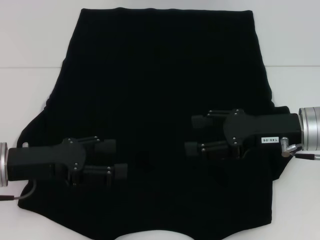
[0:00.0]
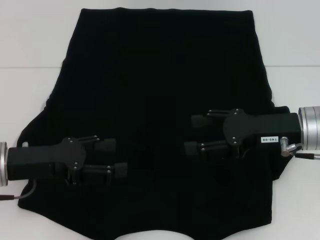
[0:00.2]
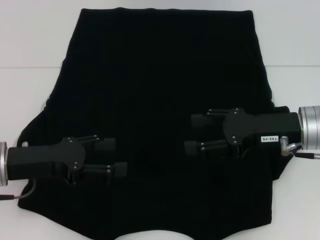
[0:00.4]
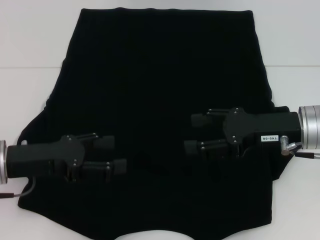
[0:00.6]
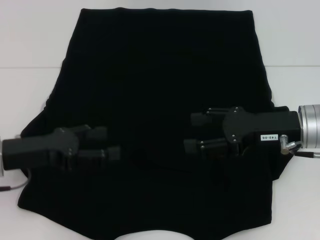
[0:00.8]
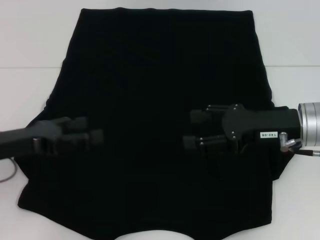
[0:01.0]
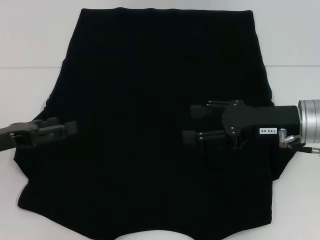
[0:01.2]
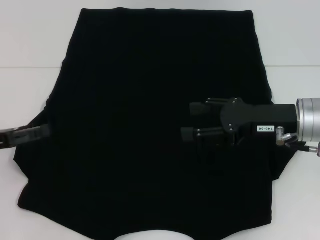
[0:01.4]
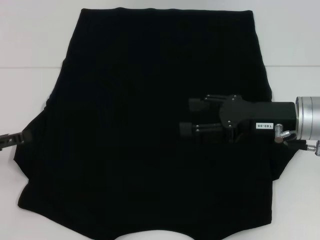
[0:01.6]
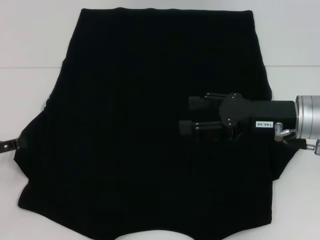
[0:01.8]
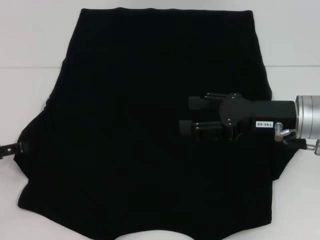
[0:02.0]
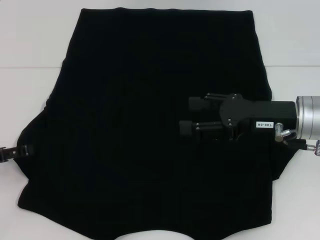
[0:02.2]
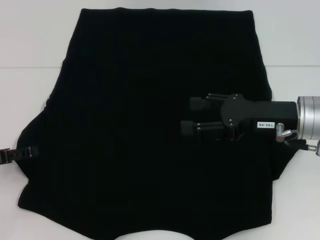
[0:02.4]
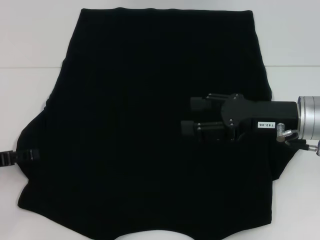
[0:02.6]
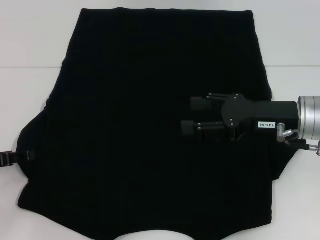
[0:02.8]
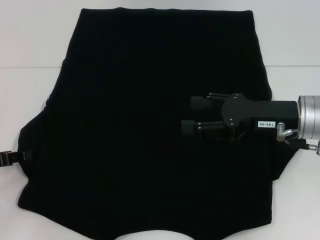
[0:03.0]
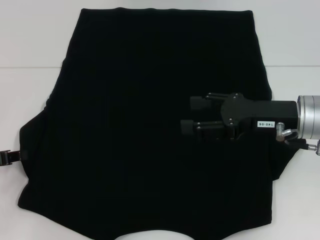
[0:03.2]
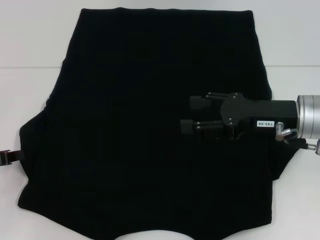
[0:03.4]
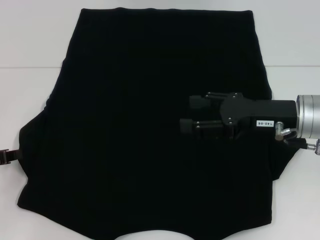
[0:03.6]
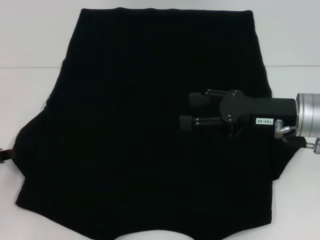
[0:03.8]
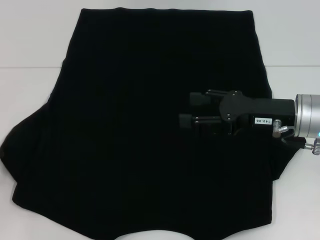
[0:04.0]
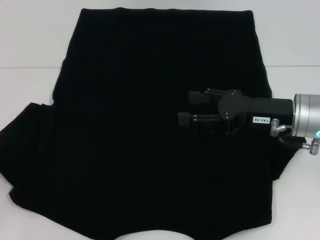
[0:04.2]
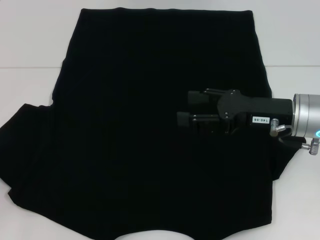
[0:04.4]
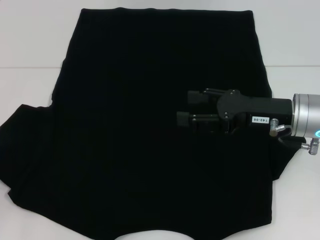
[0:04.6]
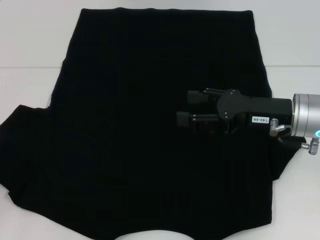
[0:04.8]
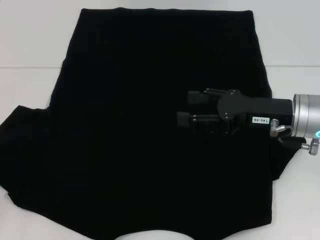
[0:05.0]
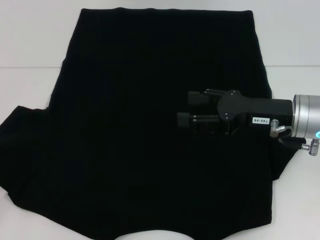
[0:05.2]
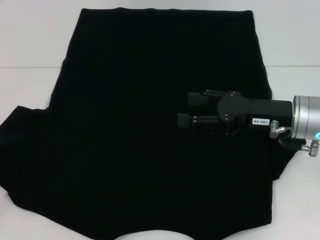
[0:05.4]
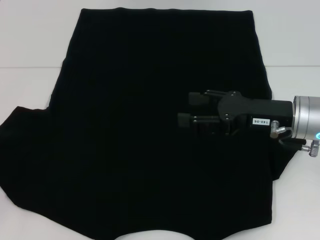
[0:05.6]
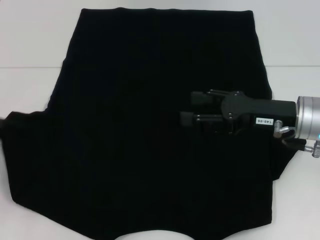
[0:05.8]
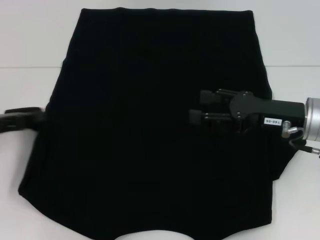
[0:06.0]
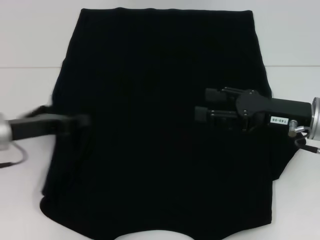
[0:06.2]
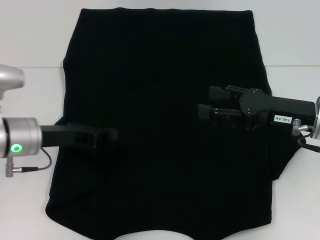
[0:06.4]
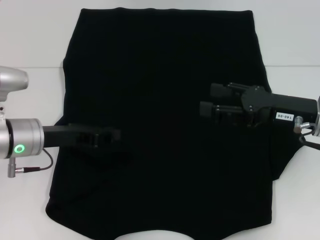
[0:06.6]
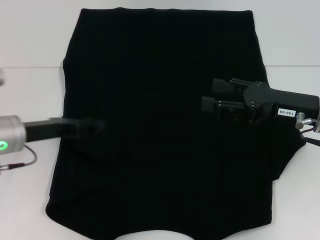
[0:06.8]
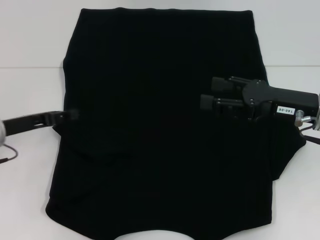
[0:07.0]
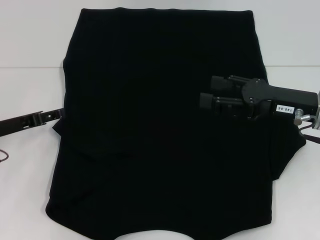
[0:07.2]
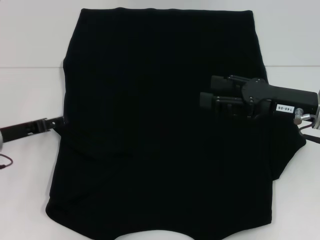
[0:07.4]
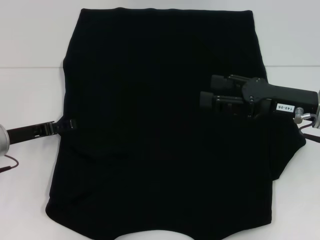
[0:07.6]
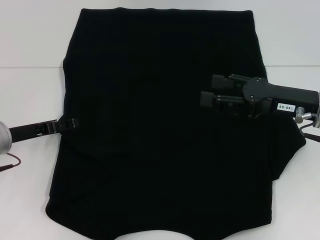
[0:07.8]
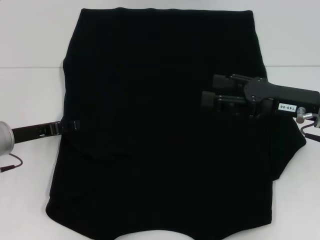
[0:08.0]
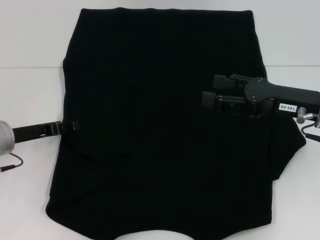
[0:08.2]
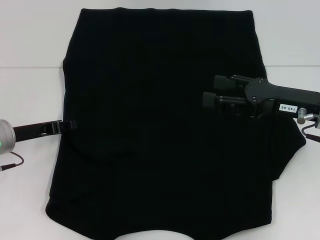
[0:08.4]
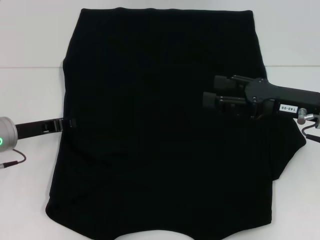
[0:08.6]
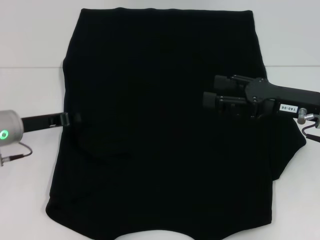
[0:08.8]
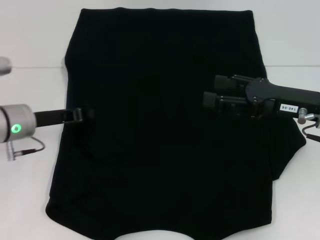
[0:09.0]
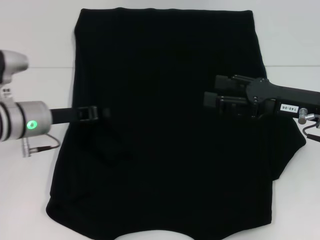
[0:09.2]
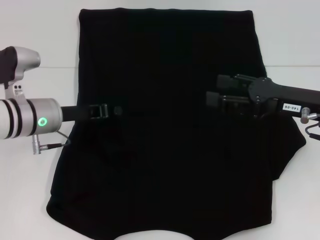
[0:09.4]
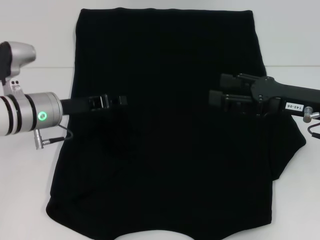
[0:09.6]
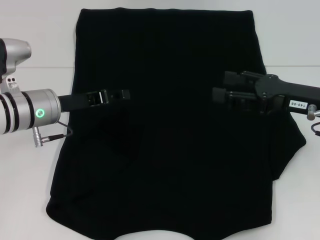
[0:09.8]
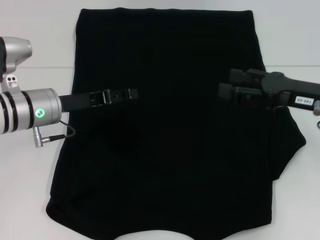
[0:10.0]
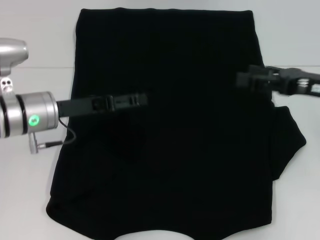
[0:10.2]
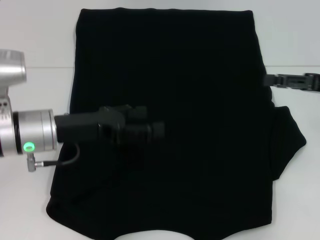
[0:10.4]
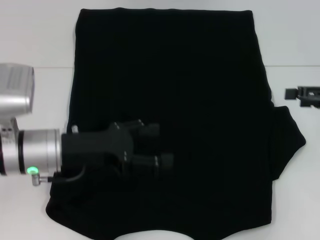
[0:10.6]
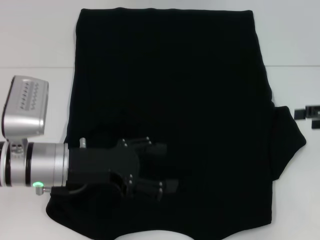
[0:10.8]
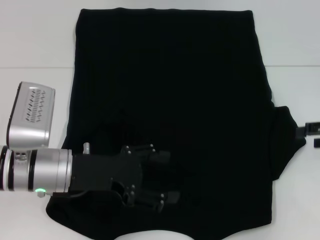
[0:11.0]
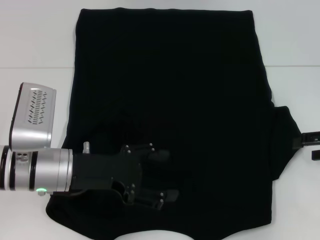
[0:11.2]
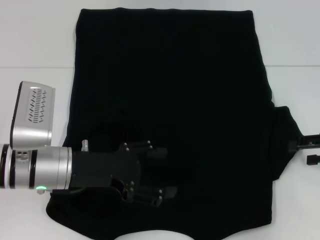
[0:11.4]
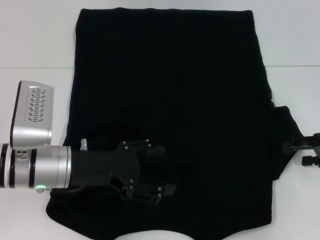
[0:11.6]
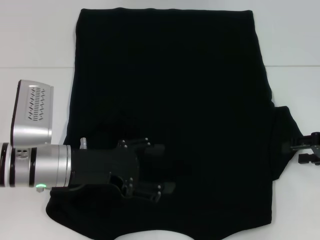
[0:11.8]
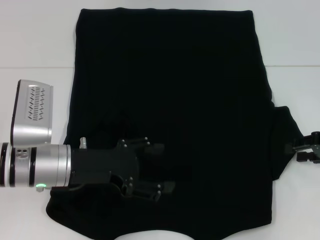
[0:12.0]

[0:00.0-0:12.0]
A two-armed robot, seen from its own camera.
Step, 0:00.0 to 0:06.6: Fold the bottom left sleeve with your left hand.
0:00.0 to 0:01.6: The left gripper heads to the left, covering about 10 cm.
0:01.6 to 0:03.0: The left gripper closes its fingers.
0:03.0 to 0:04.4: The left gripper closes.
0:04.4 to 0:06.0: The left gripper travels to the right by approximately 5 cm.
0:06.0 to 0:07.6: The left gripper changes place by roughly 5 cm, and opens up.
0:07.6 to 0:09.0: The left gripper changes place by roughly 5 cm, and closes up.
0:09.0 to 0:10.4: The right gripper moves to the right, approximately 10 cm, while the left gripper shifts by roughly 5 cm, and opens its fingers.
0:10.4 to 0:12.0: The right gripper travels downward by some 5 cm.

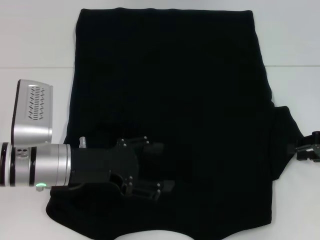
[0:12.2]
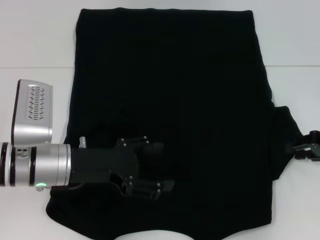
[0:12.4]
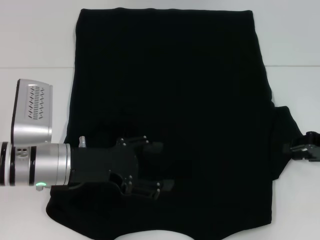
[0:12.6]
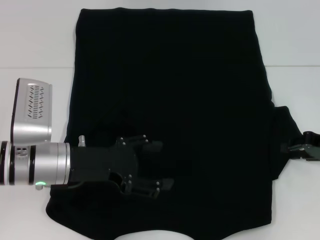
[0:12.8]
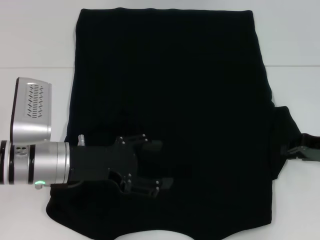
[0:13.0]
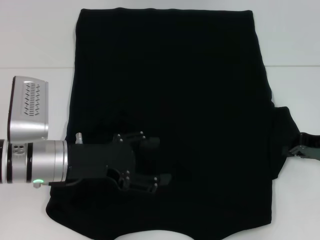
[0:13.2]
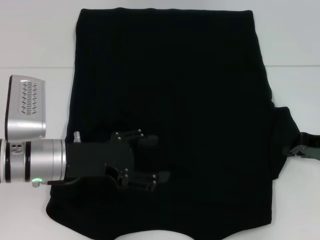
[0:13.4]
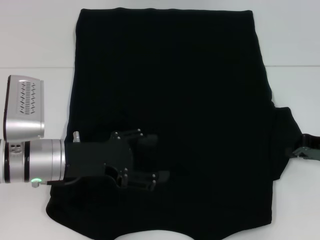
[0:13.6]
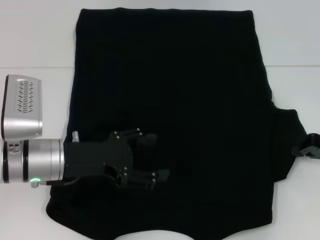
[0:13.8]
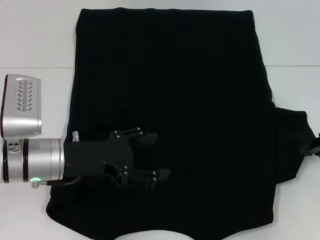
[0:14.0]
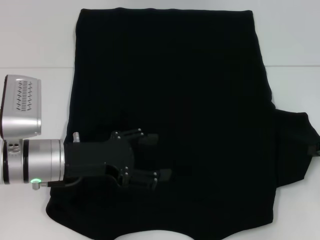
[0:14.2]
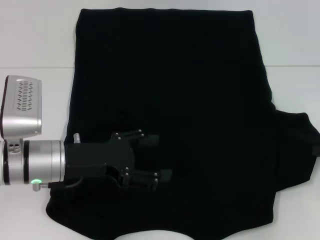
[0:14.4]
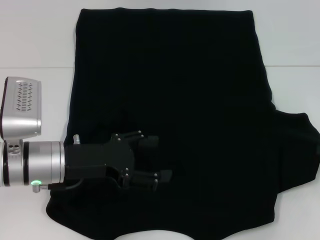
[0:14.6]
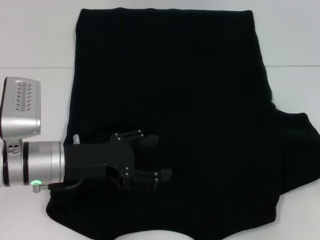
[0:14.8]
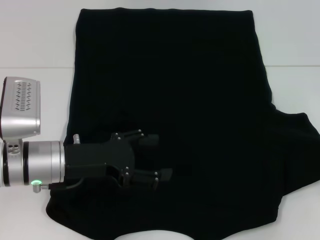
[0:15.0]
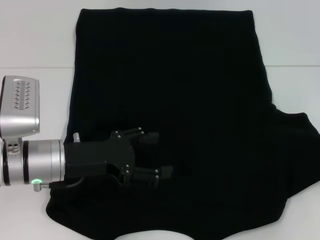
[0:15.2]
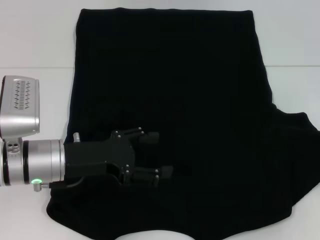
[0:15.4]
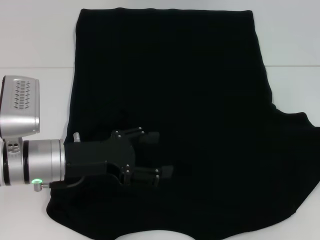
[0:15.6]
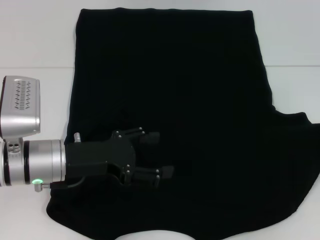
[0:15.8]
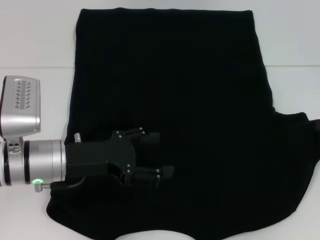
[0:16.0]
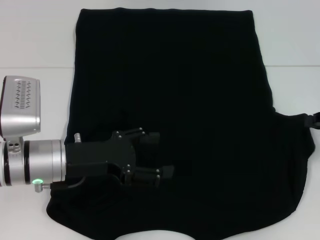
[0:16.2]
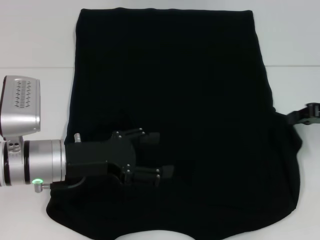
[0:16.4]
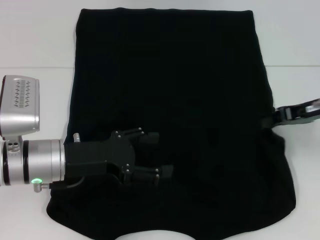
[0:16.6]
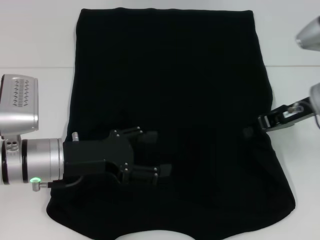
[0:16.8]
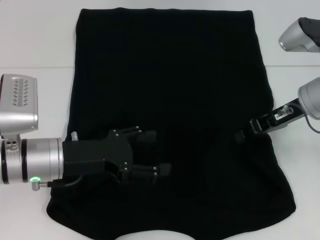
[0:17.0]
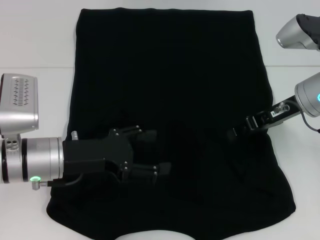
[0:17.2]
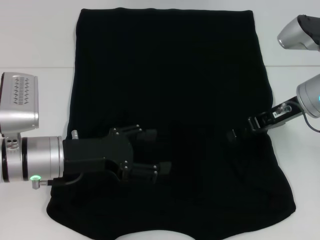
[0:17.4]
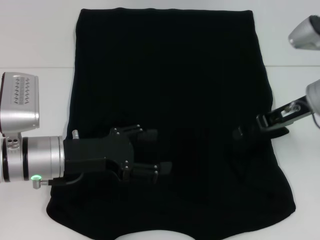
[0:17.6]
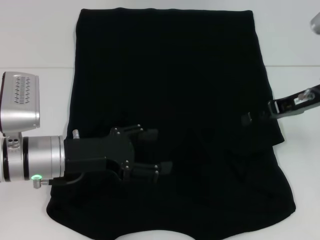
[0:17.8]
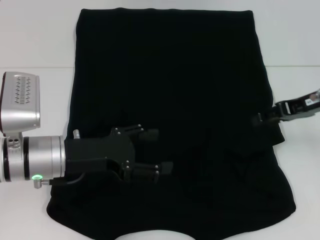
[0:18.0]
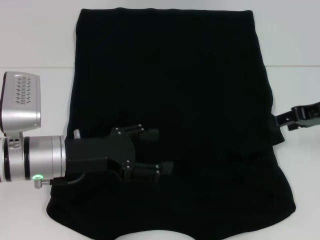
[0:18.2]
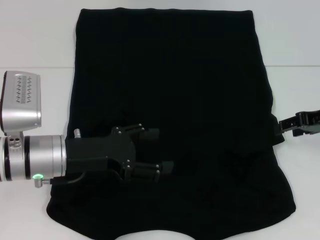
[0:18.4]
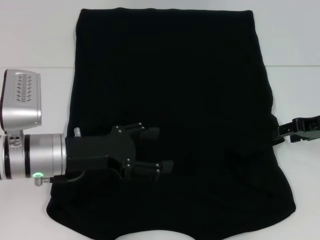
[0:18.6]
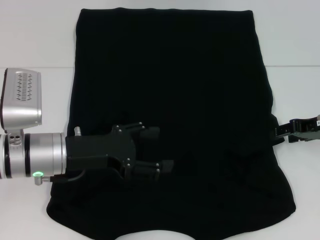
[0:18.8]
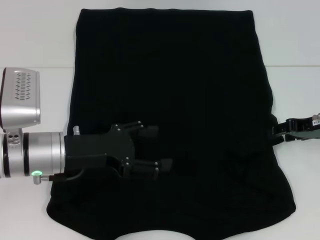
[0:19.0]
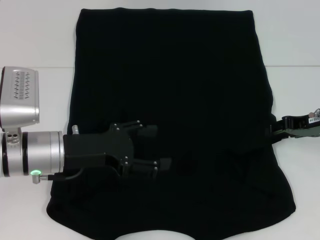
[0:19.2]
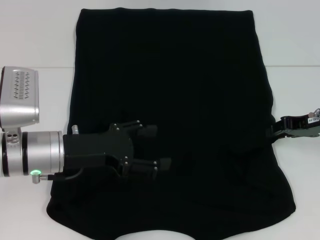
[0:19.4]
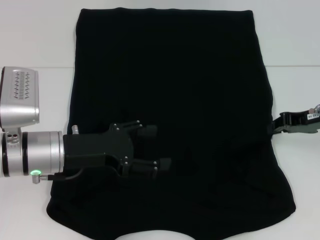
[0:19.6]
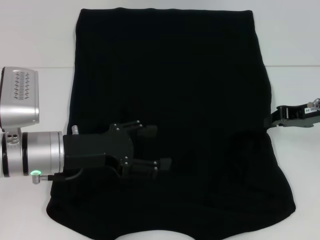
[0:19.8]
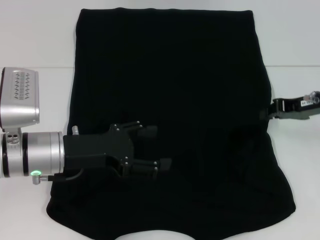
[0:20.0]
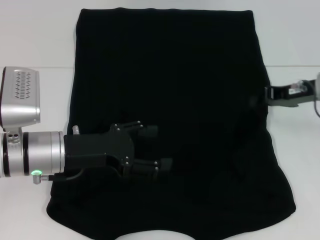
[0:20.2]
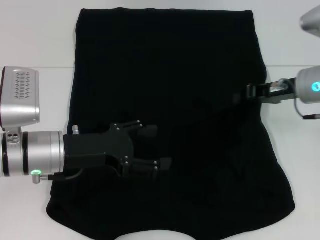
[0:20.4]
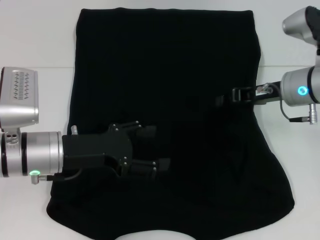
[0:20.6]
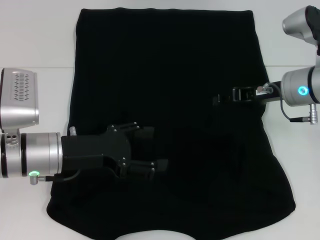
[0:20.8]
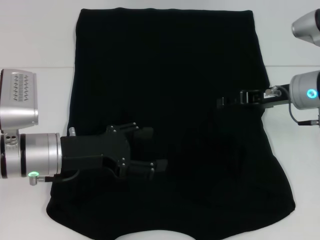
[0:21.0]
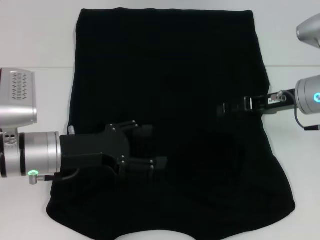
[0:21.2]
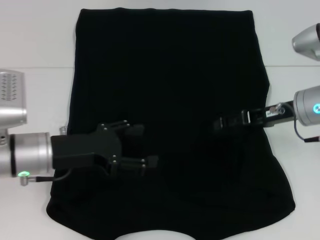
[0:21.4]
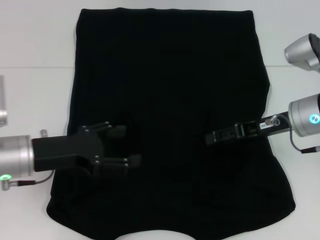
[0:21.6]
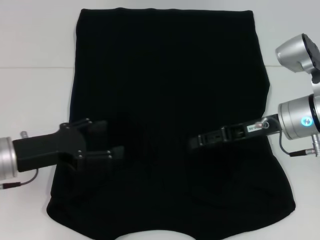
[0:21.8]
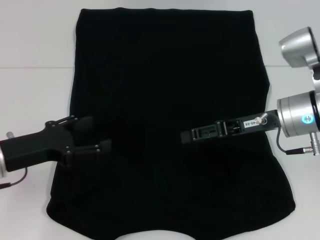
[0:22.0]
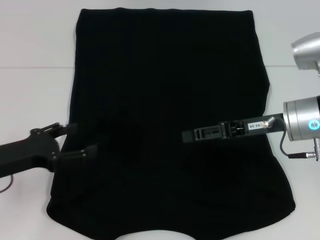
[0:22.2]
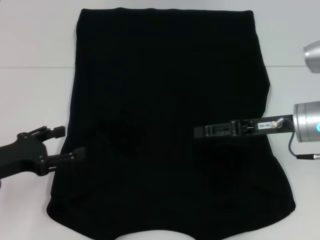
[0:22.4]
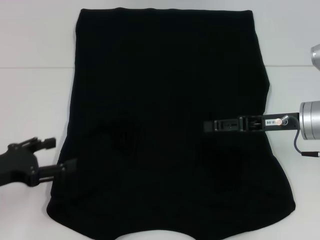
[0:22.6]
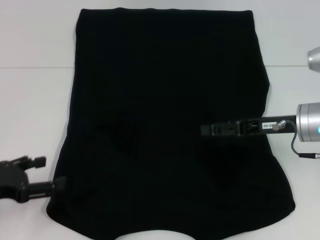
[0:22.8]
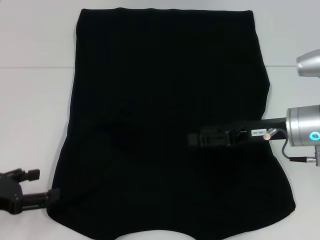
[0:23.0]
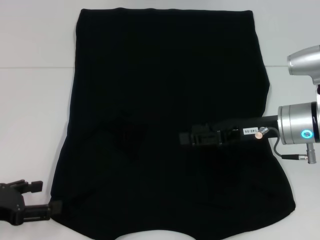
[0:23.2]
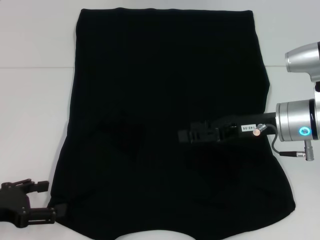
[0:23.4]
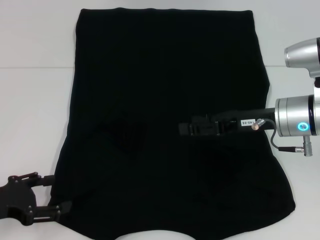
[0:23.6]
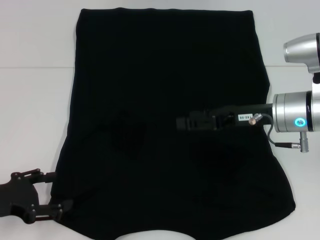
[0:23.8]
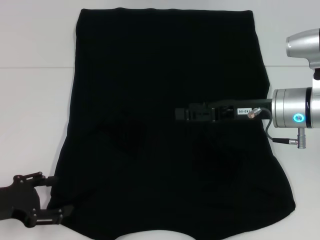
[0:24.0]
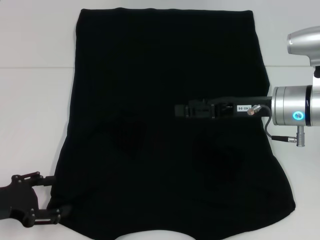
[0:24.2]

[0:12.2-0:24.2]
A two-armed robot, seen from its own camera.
Step, 0:12.2 to 0:21.0: Fold the bottom right sleeve with your right hand.
0:12.2 to 0:13.8: The right gripper closes its fingers.
0:13.8 to 0:15.2: The right gripper is displaced to the right by approximately 5 cm.
0:15.2 to 0:16.6: The right gripper heads to the left and forward, covering some 10 cm.
0:16.6 to 0:18.2: The right gripper reaches some 5 cm to the left, then returns, and opens up.
0:18.2 to 0:19.8: The right gripper closes up.
0:19.8 to 0:21.2: The right gripper heads to the left, covering roughly 5 cm, and opens.
0:21.2 to 0:22.6: The left gripper is displaced to the left and backward by approximately 15 cm.
